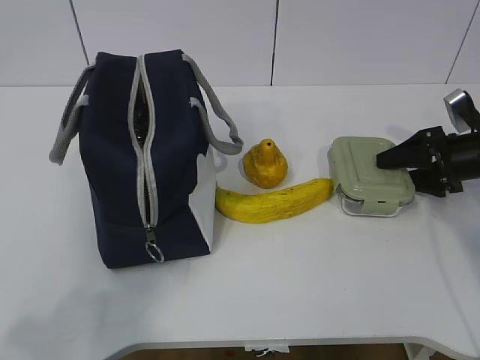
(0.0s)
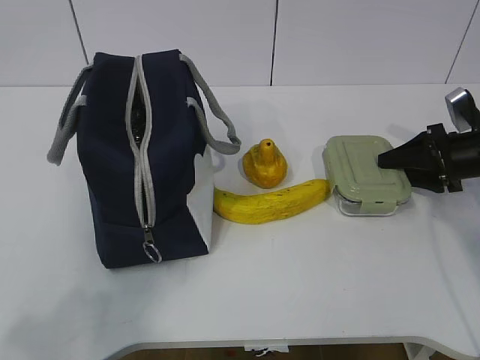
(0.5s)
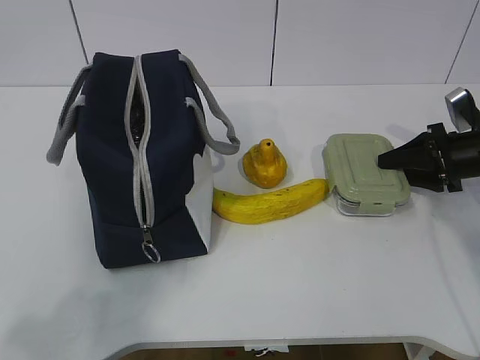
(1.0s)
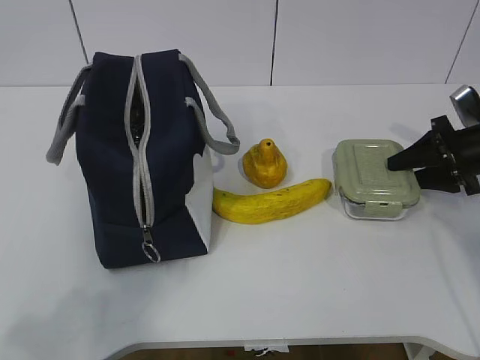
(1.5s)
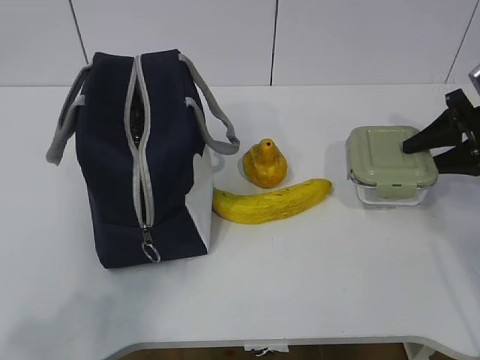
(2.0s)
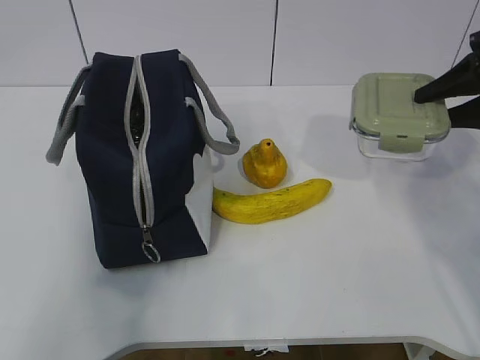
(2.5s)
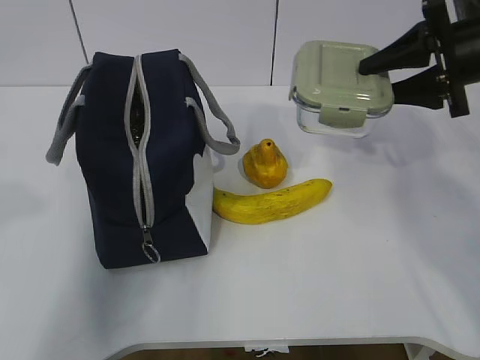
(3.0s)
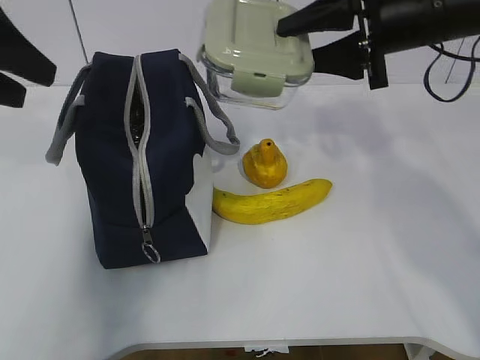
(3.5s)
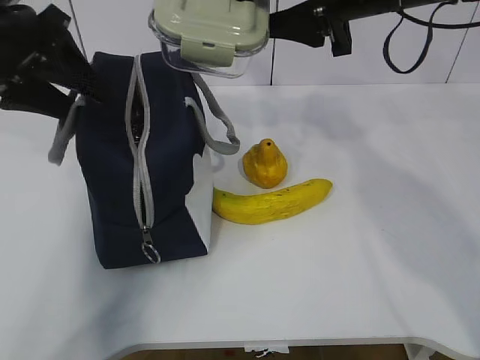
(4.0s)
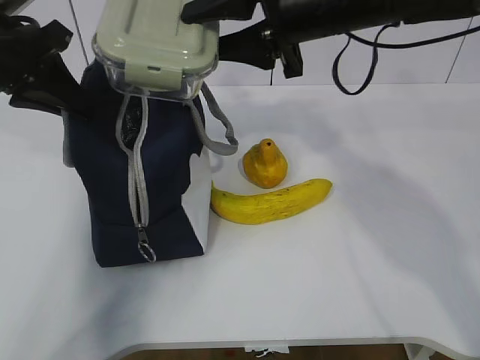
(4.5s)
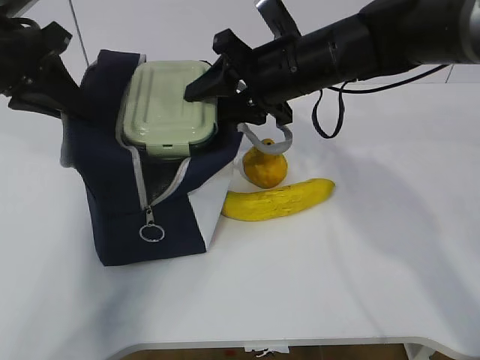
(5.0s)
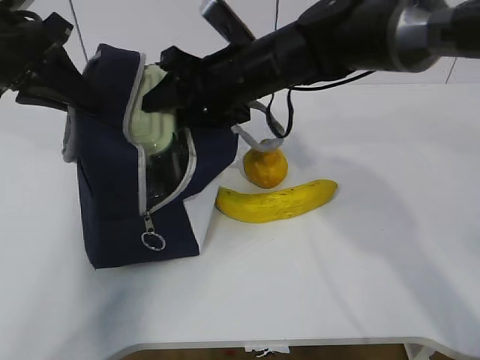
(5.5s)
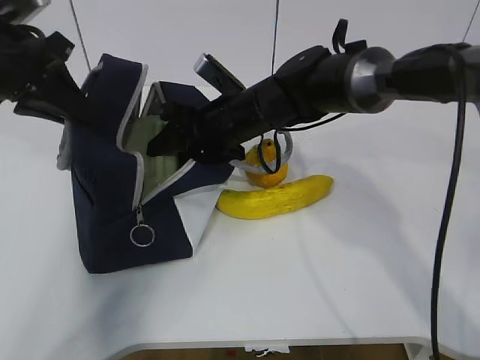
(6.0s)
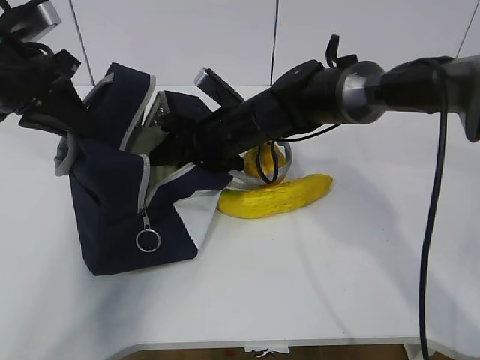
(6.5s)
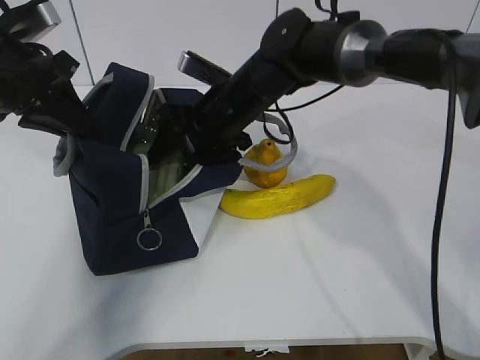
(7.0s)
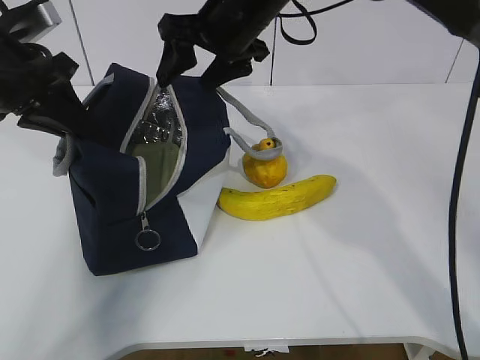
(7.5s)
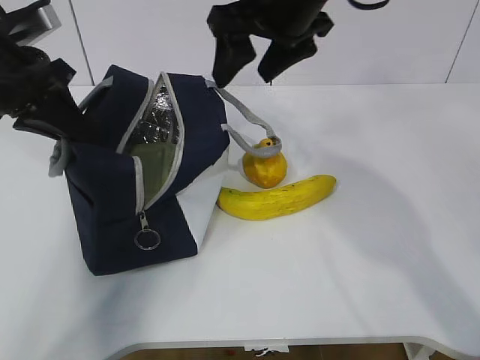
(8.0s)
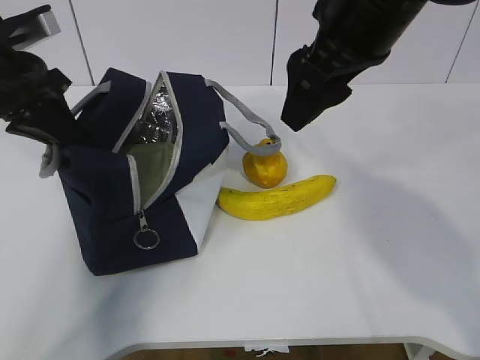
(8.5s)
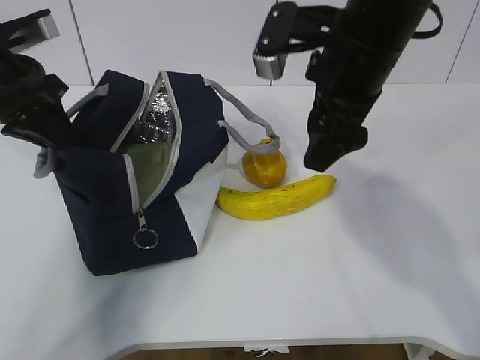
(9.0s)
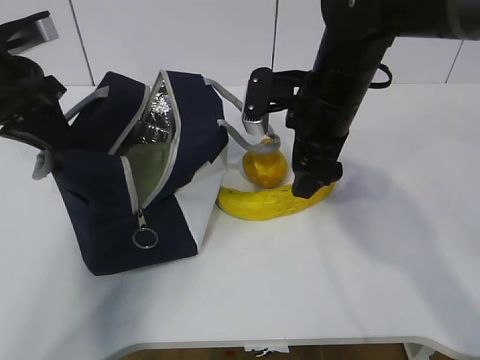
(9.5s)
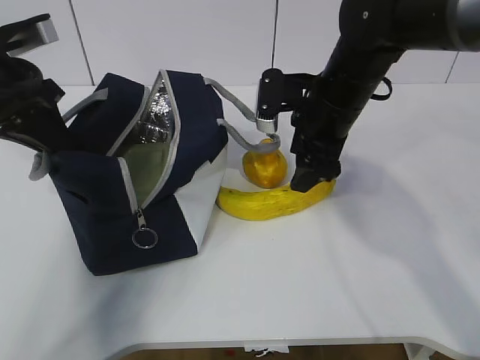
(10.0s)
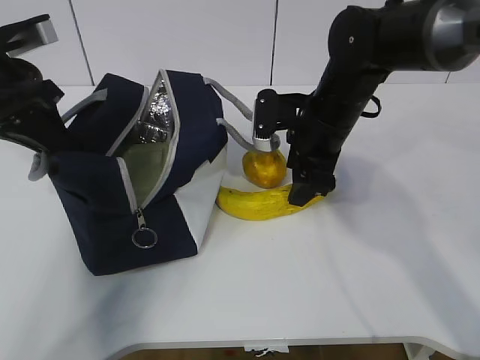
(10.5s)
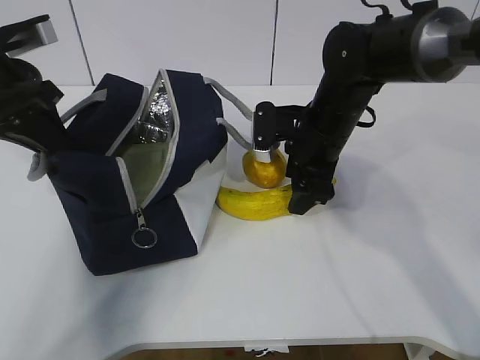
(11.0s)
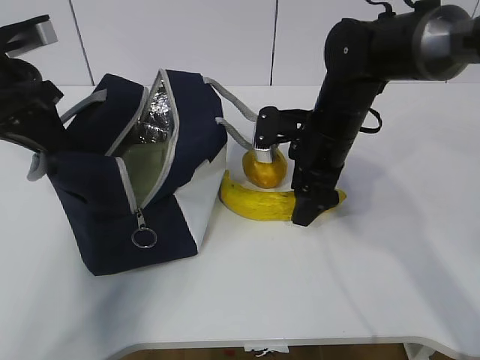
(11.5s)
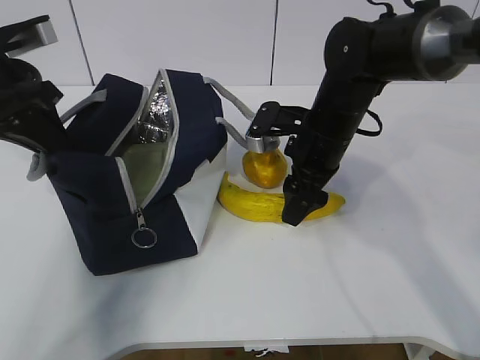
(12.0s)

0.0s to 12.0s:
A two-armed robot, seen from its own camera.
Step, 0.5s to 2.5s: Grab the lunch bag with your left hand.
Step, 3.0s to 4.5s: Place it into the bag with your right hand.
Step, 5.0s to 11.5s: Grab the banana with your right hand.
0.0s to 2.0s: The right gripper travels upward by some 5 cm, and closes.
2.0s to 4.0s: The right gripper shifts roughly 25 cm to the left and upward; the left gripper moves forward, some 35 cm, and opens up.
4.0s to 6.0s: The right gripper shifts about 20 cm downward and to the left. Meanwhile the left gripper closes up.
6.0s to 8.0s: The right gripper shifts approximately 15 cm upward, and opens its fingers.
8.0s to 10.0s: The right gripper heads downward and to the right, covering about 15 cm.
10.0s to 12.0s: There are only small adjustments of the grippers.

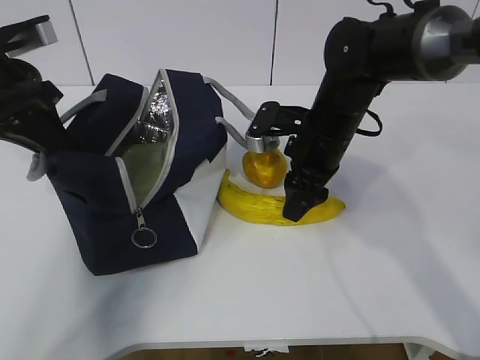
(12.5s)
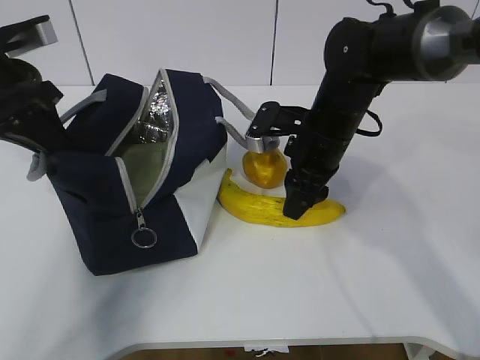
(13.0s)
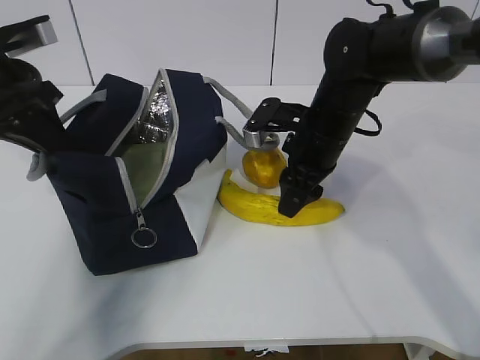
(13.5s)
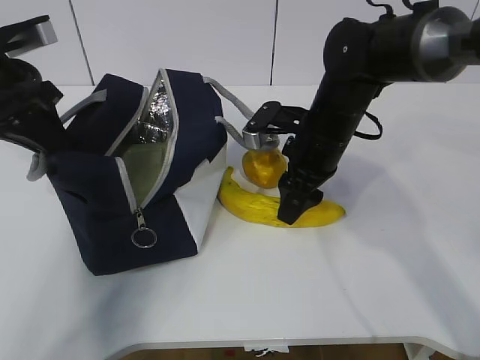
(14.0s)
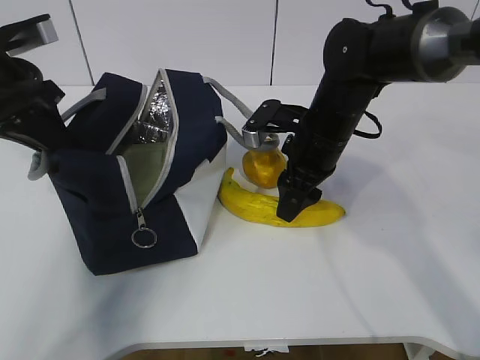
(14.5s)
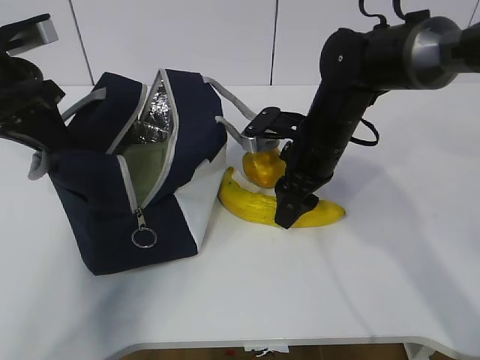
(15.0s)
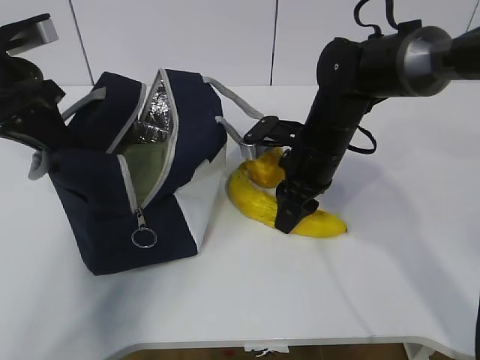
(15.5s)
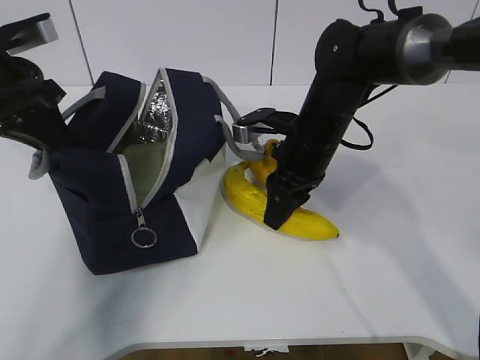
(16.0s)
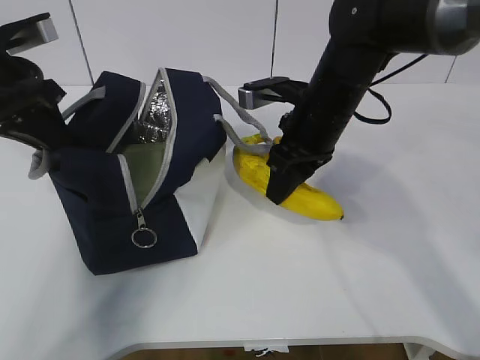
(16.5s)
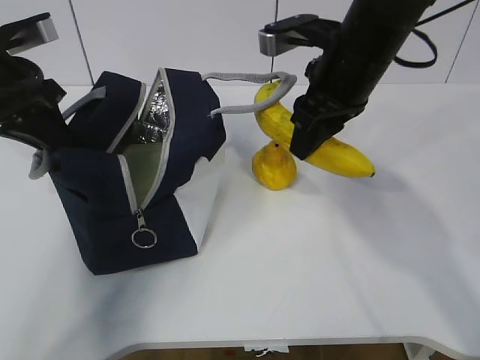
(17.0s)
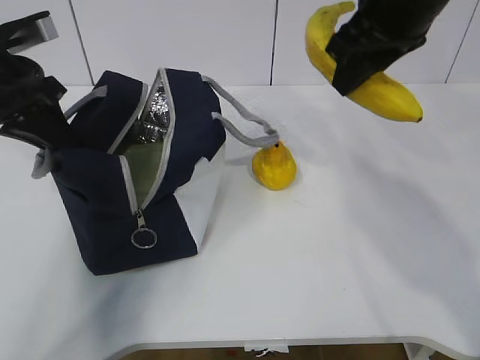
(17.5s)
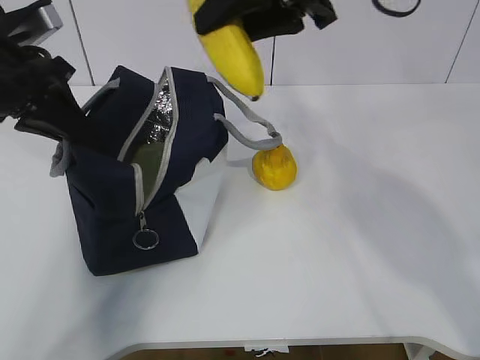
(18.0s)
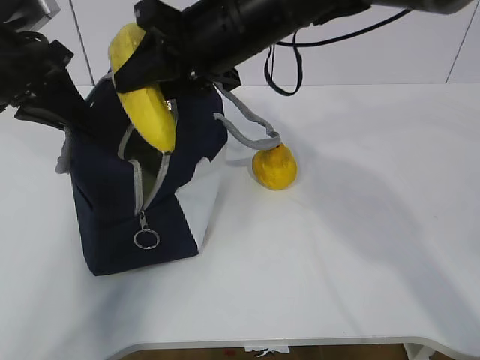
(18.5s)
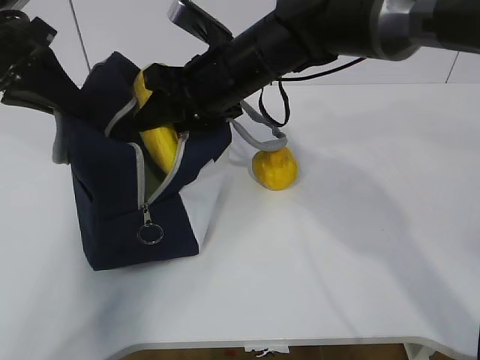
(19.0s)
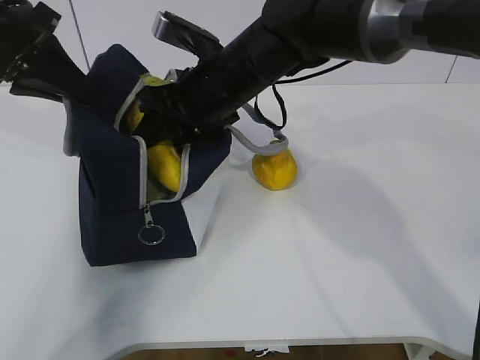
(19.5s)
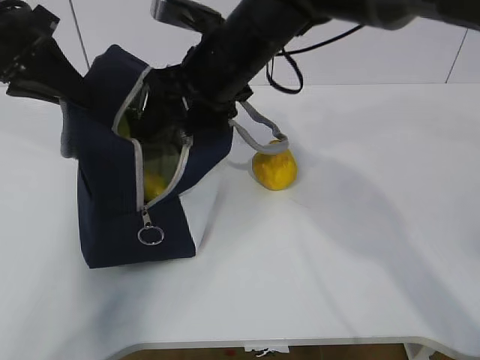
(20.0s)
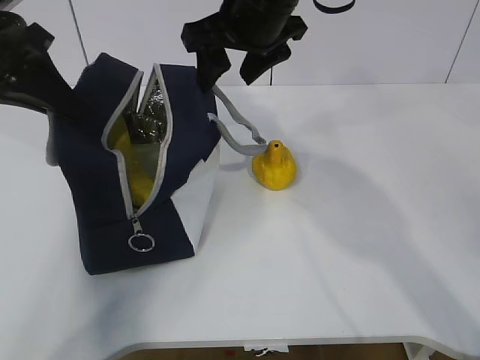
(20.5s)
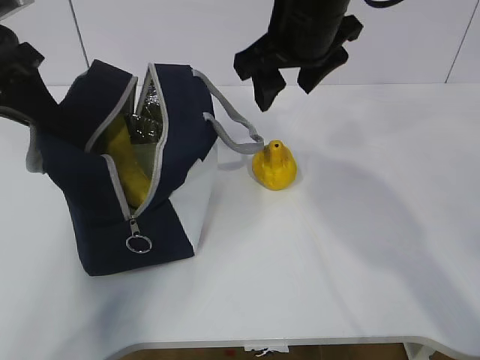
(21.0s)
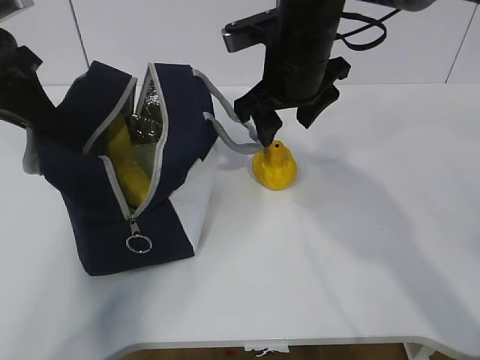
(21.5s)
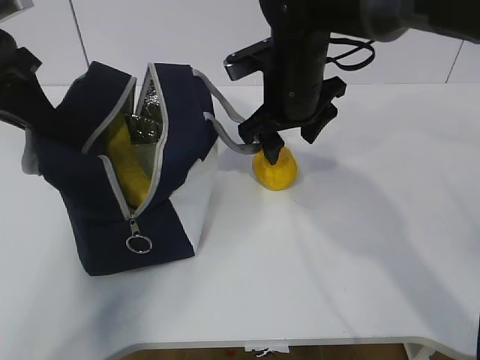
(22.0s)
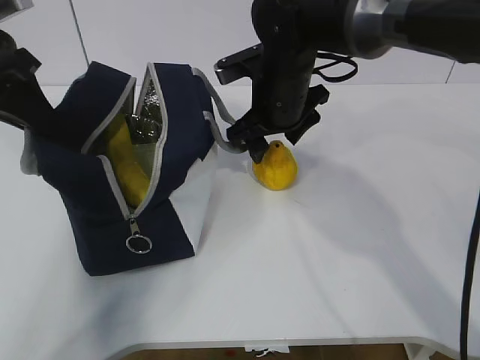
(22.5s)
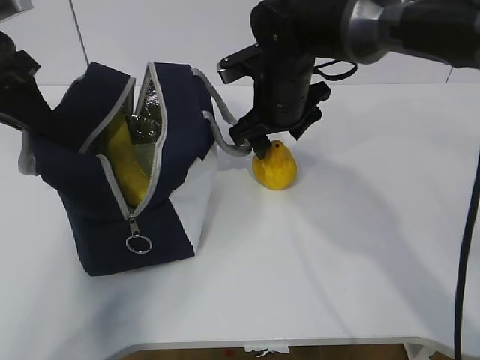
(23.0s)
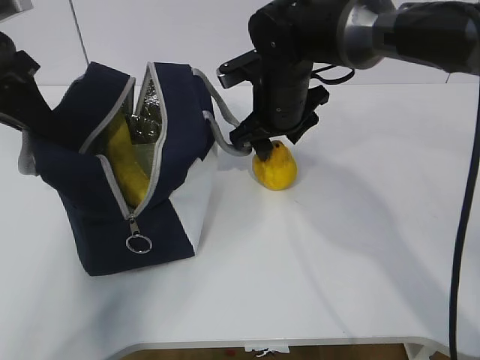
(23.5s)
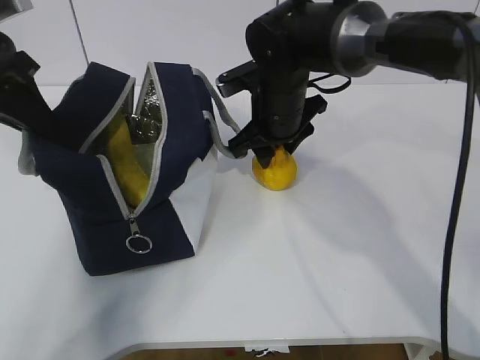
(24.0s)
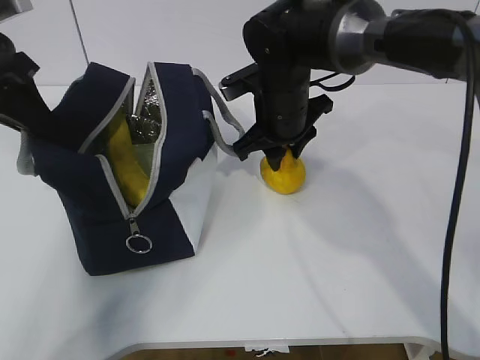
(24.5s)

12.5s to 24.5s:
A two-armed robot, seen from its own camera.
Step, 12.5s to 15.0s: Place it into the bag with your right hand.
Step, 15.5s to 19.0s: Grab the pear with your right hand.
Step, 21.0s to 21.5s: Grab the lunch bag with your right hand.
Step, 22.0s to 23.0s: Move the lunch bag to the right.
12.5s to 14.5s: The grippers make only small movements.
14.5s to 16.5s: The grippers stay close to where they were, moving slightly.
16.5s to 18.5s: The right gripper travels upward and to the left by about 15 cm.
18.5s to 20.5s: The right gripper reaches approximately 5 cm downward, then returns, and opens its fingers.
20.5s to 22.5s: The right gripper goes roughly 10 cm downward.
22.5s to 24.5s: The right gripper closes.

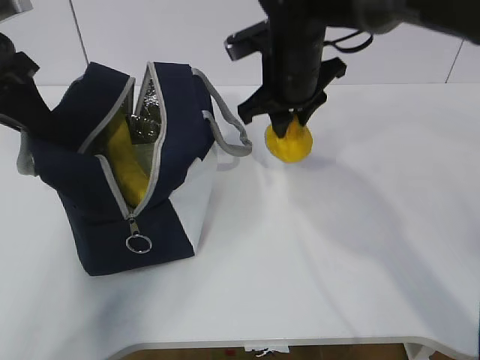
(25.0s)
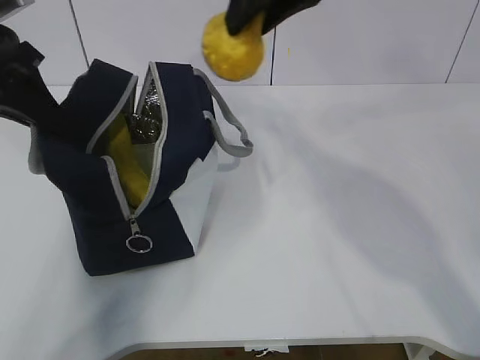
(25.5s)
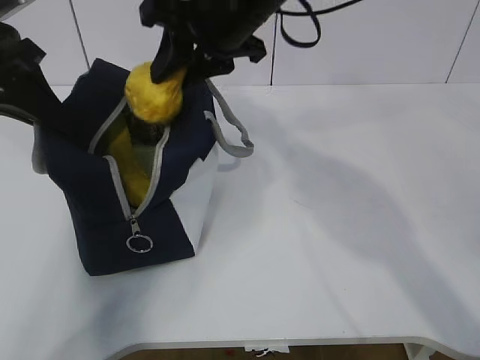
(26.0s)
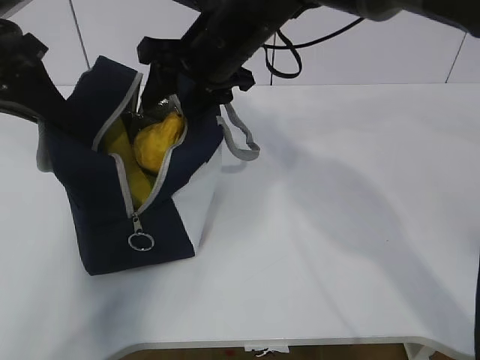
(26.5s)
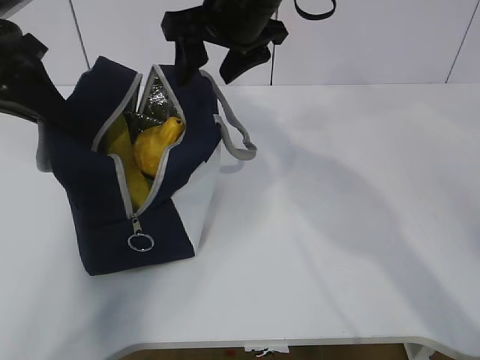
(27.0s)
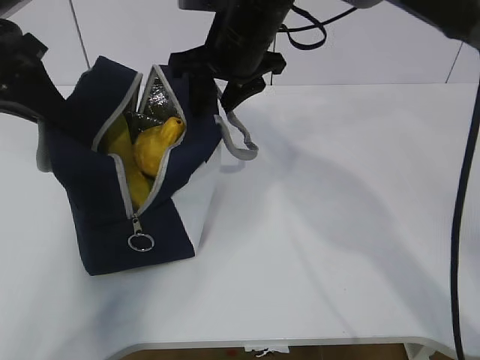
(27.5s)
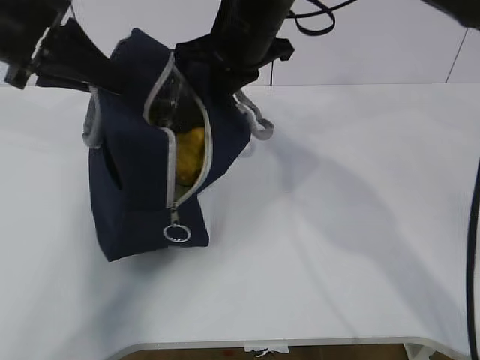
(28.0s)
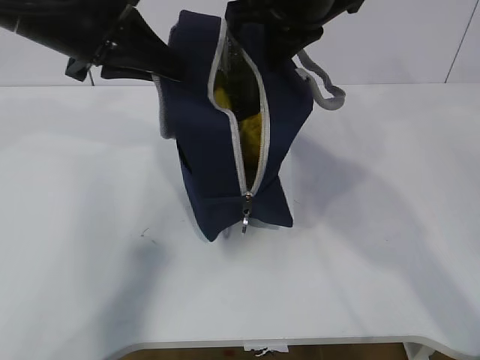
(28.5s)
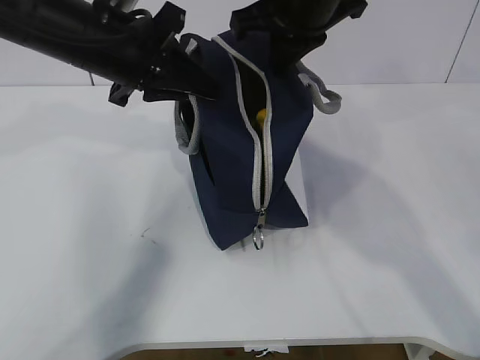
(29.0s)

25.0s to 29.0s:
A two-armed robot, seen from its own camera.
25.0s to 27.0s: The right gripper swings up and down, roughly 15 cm each way, with 2 reversals, and opens.
27.0s to 29.0s: The right gripper heads to the right, covering approximately 5 cm, and closes up. The left gripper is displaced to the right by about 10 cm.
